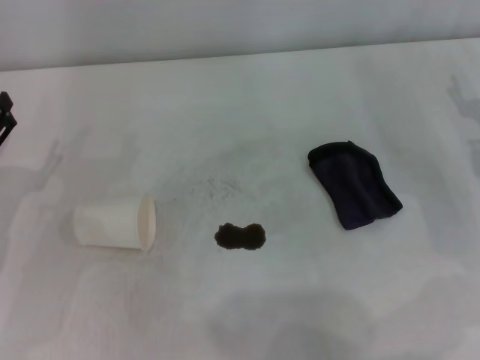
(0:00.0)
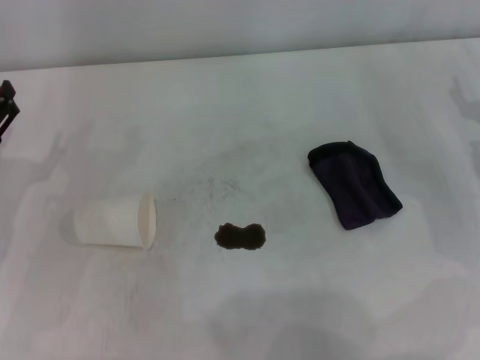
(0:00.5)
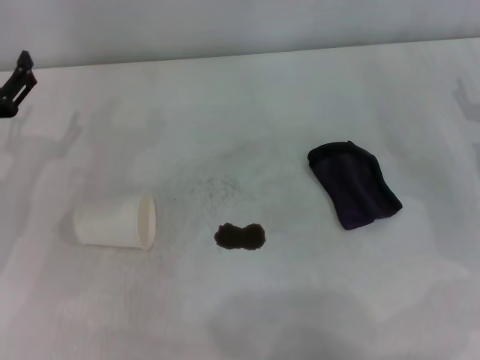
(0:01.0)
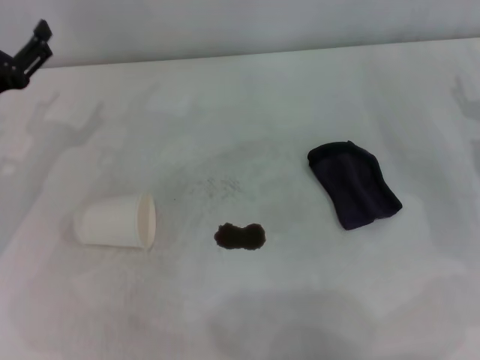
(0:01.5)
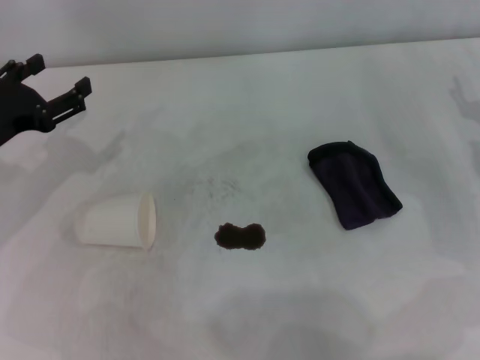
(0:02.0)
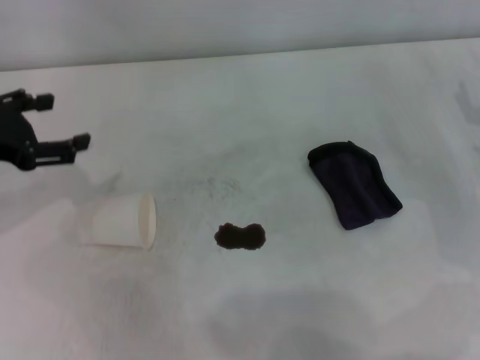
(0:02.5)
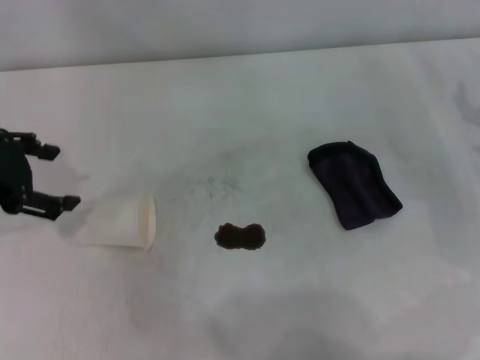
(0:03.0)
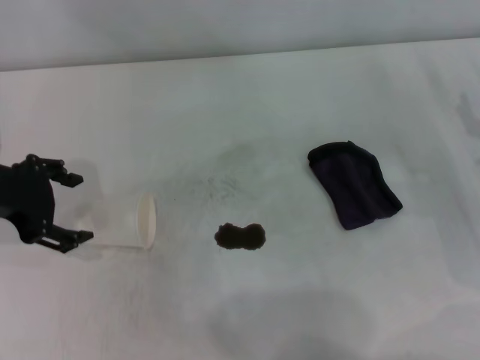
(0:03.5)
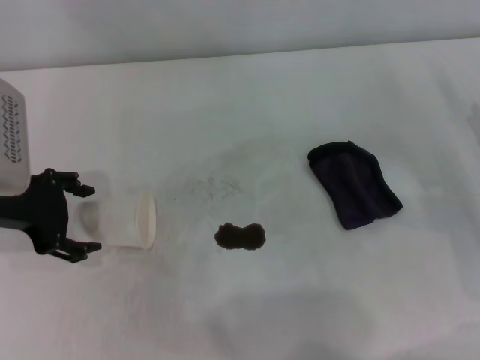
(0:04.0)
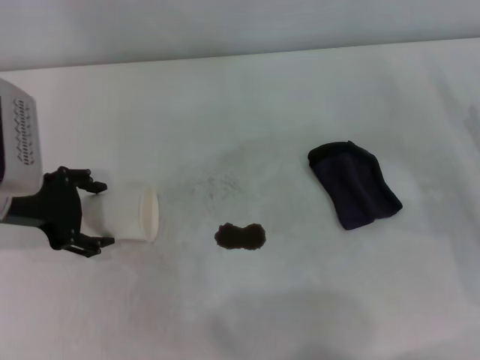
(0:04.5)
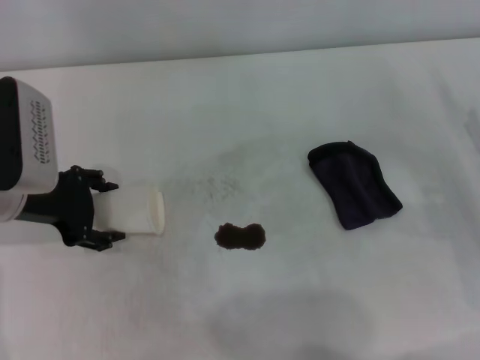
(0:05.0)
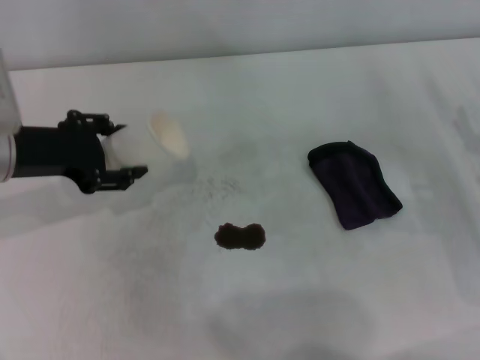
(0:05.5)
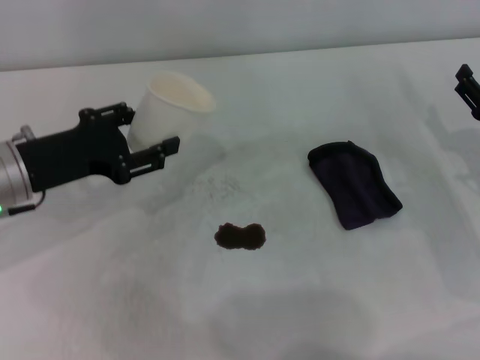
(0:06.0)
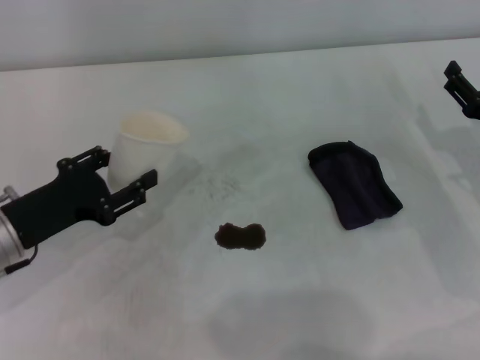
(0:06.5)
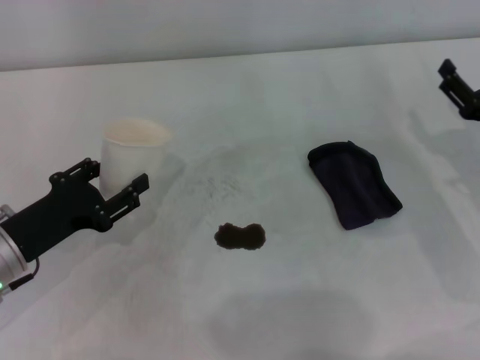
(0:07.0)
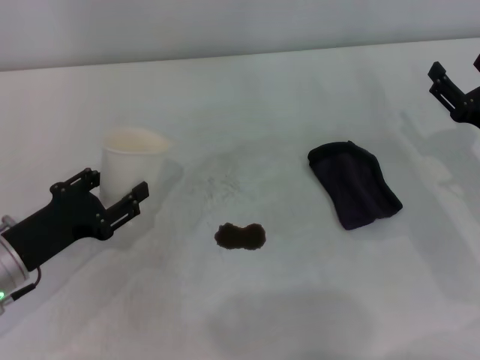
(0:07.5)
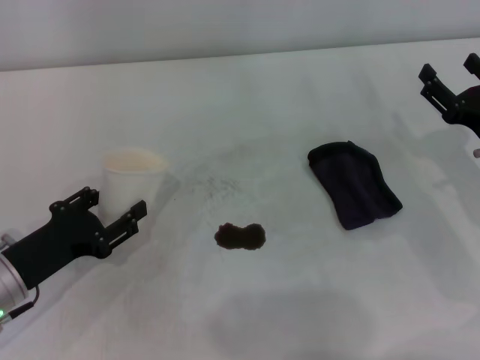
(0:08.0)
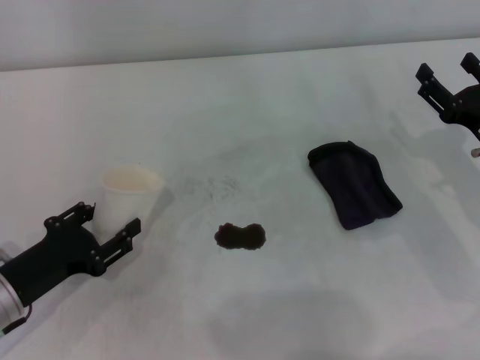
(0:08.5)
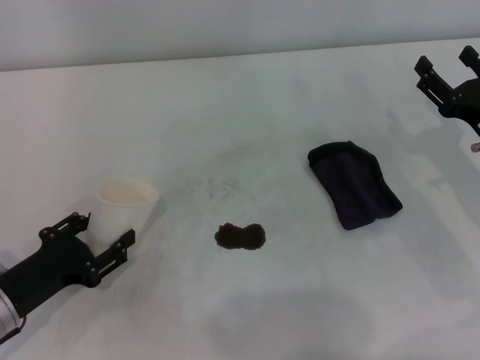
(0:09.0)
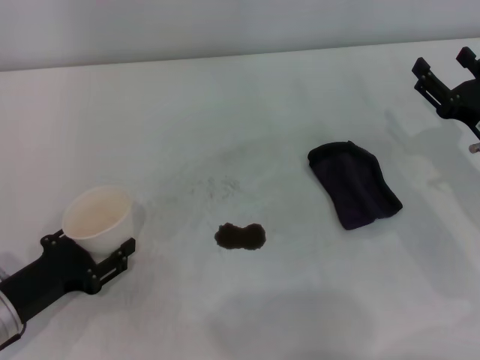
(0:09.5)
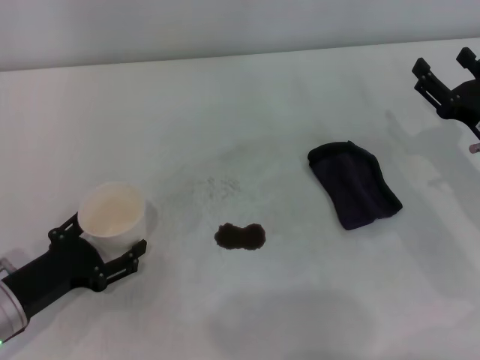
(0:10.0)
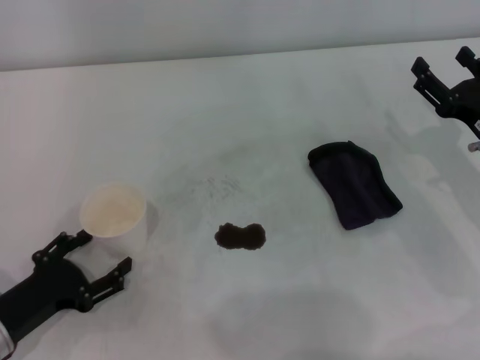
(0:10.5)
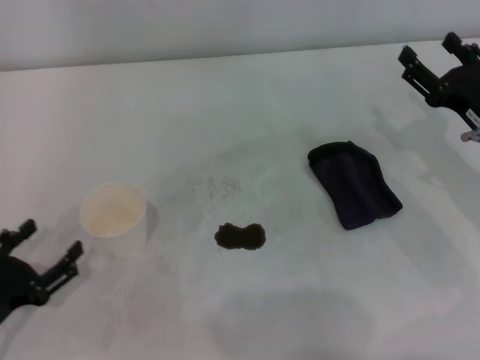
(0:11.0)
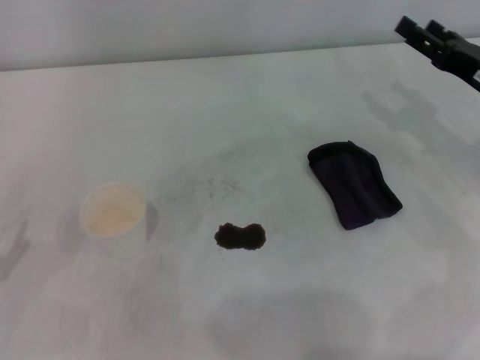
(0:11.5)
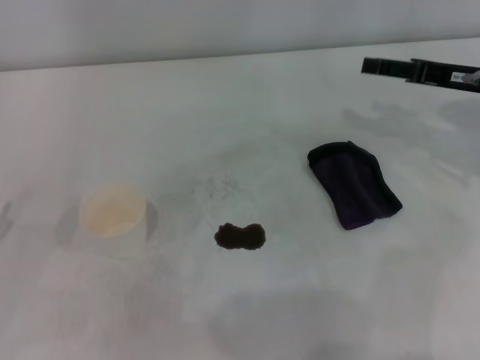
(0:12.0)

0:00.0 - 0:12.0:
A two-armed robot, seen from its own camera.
Step, 0:00.0 - 0:04.5: Grasp the paper cup with the left gripper.
Step, 0:05.0 - 0:10.0: Stand the paper cup upright with the left gripper.
0:00.0 - 0:02.0: The left gripper is displaced forward and upward by approximately 10 cm.
0:02.0 - 0:04.0: The left gripper ends up some 5 cm from where it was.
0:04.0 - 0:06.0: The left gripper closes.
0:06.0 - 0:08.0: The left gripper is displaced downward and backward by about 10 cm.
0:08.0 - 0:10.0: The left gripper opens up.
0:10.0 - 0:12.0: The right gripper shifts about 10 cm upward and forward; the left gripper goes roughly 10 cm to the left.

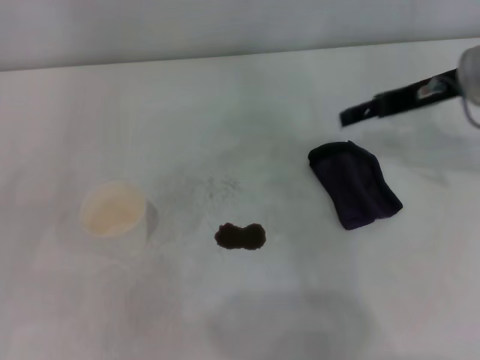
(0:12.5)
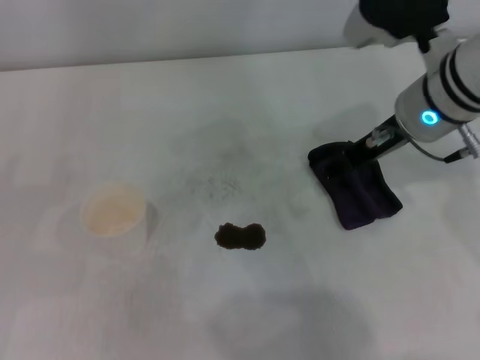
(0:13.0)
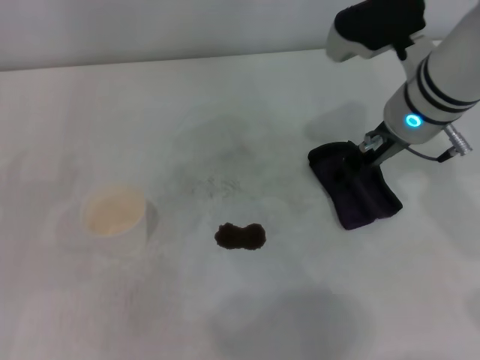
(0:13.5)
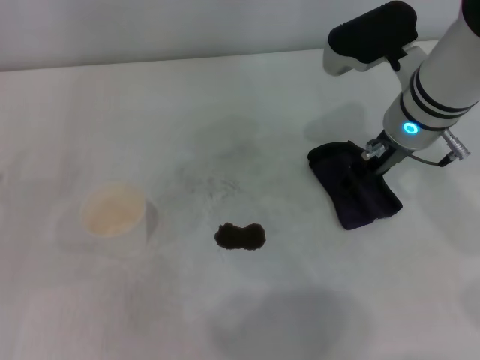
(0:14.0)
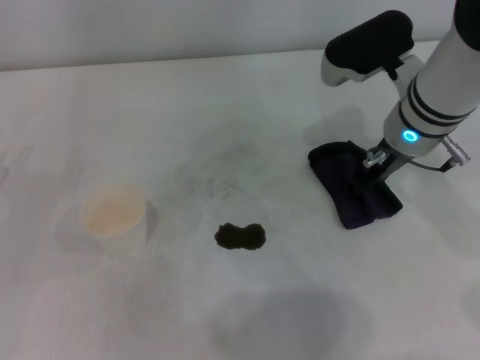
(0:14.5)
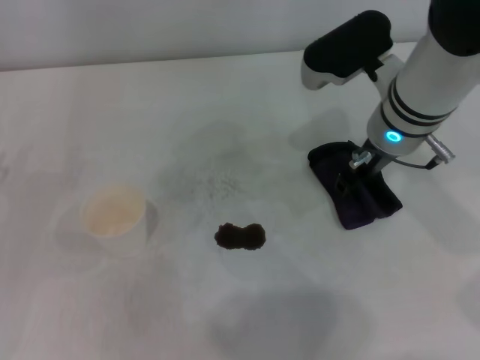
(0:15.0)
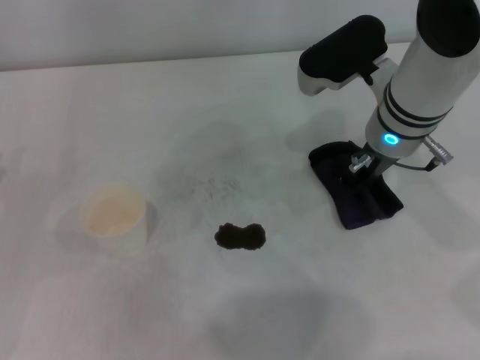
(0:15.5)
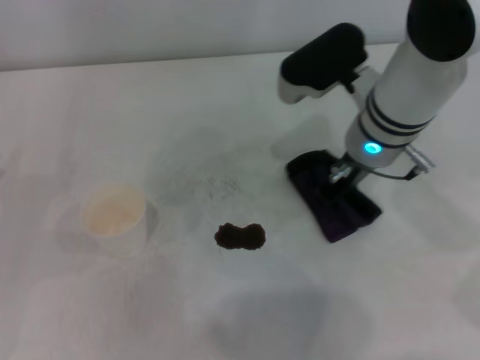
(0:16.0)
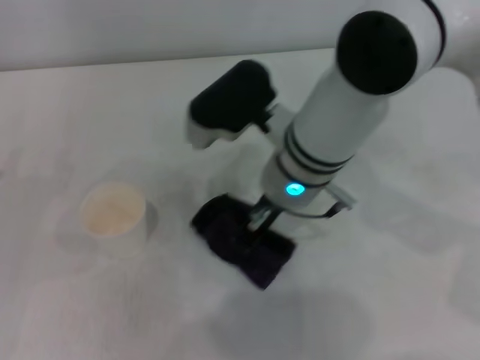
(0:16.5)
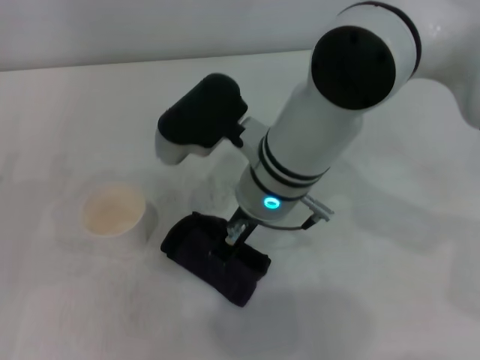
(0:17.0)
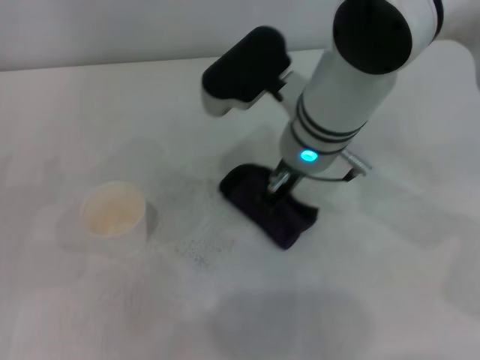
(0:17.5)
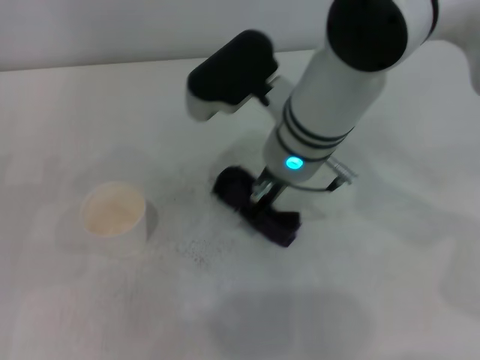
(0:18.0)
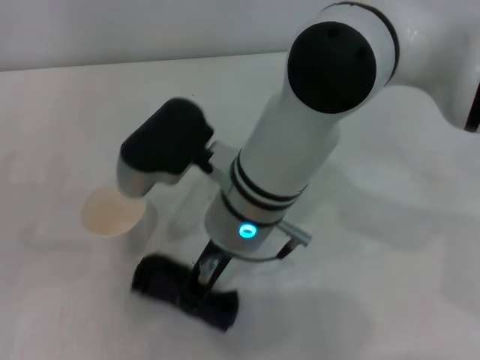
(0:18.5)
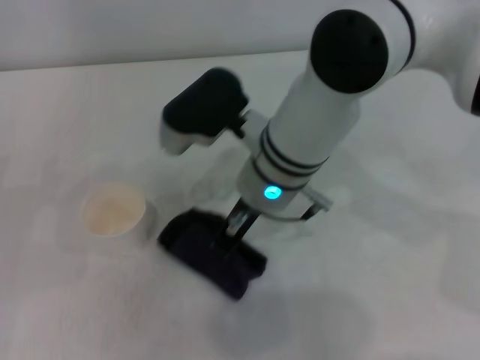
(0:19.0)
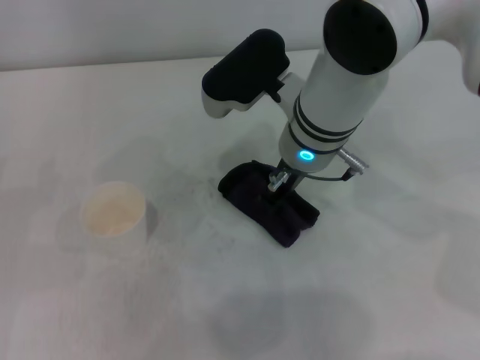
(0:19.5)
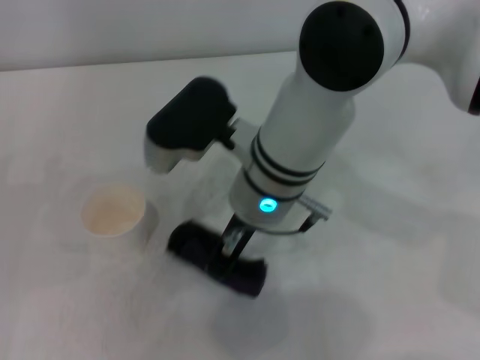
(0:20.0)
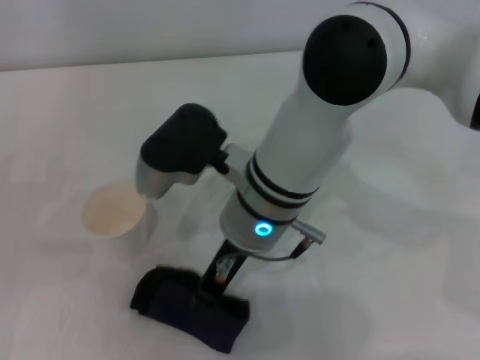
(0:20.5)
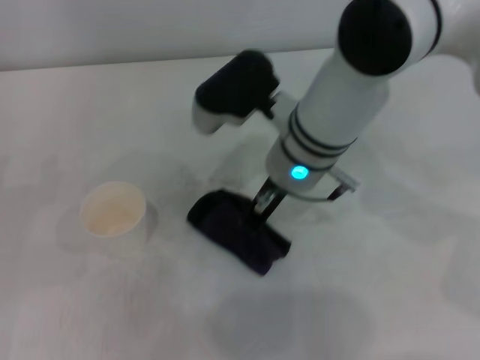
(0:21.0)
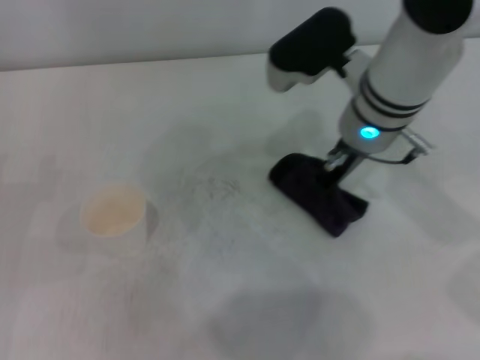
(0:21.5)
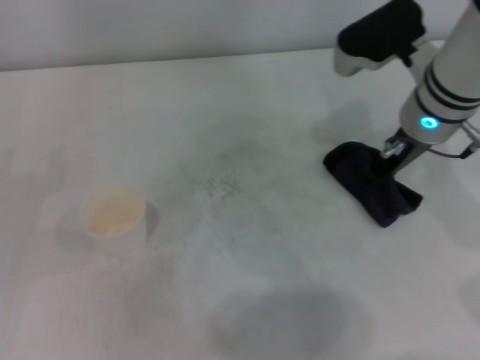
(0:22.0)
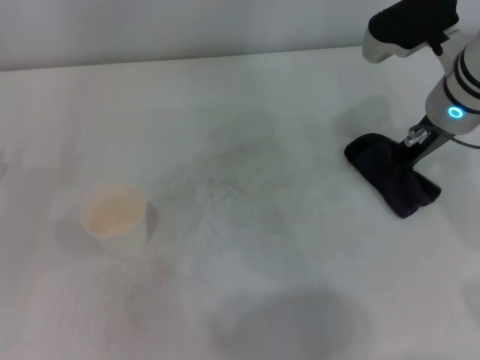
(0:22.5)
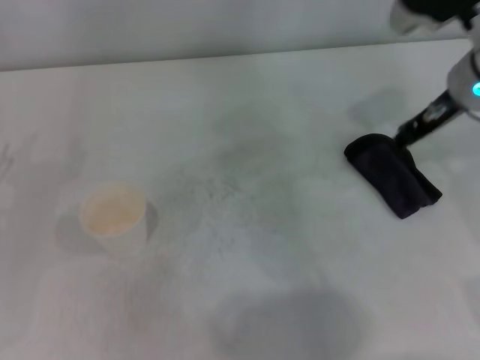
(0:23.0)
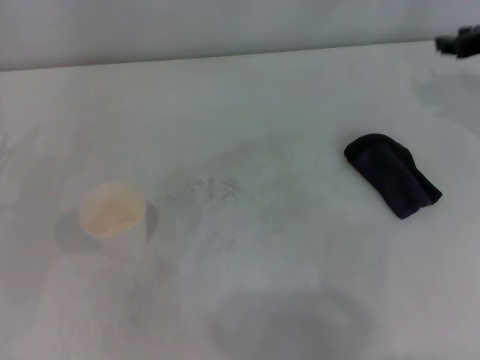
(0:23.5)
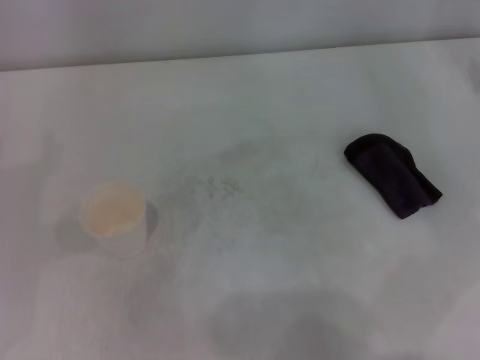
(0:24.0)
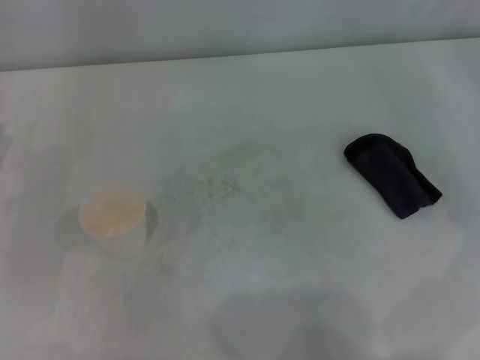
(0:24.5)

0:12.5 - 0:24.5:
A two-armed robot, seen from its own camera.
Step, 0:12.5 - 0:15.5: Grasp the rag with the right gripper.
Step, 0:16.0 - 0:21.5: Wipe the stains off the table with the right gripper.
Step, 0:22.0 - 0:22.5: Place the rag on the table with the right gripper.
0:12.5 - 0:14.5: The right gripper heads to the left, covering about 10 cm.
0:14.5 - 0:16.5: The right gripper goes about 10 cm to the left, and closes up.
0:16.5 - 0:18.5: The right gripper changes place by about 5 cm.
0:20.5 - 0:22.5: The right gripper moves to the right, some 20 cm.
0:22.5 - 0:24.5: The right gripper shifts approximately 20 cm to the right.
